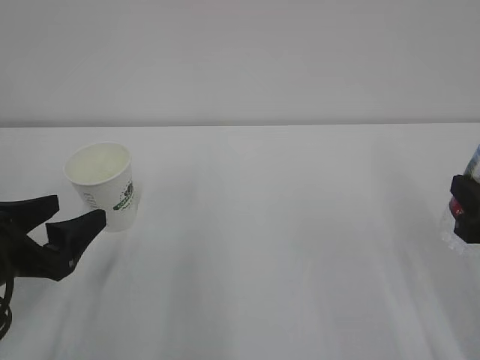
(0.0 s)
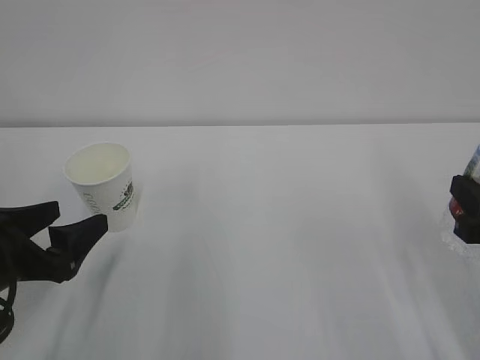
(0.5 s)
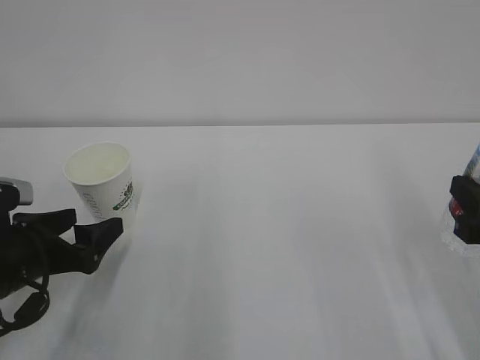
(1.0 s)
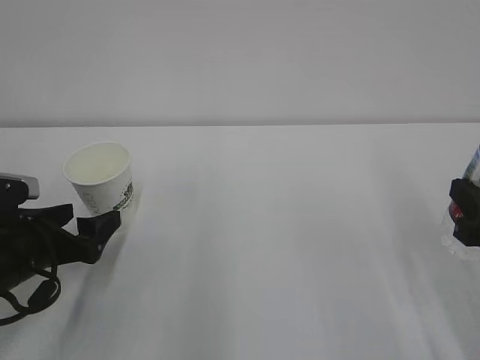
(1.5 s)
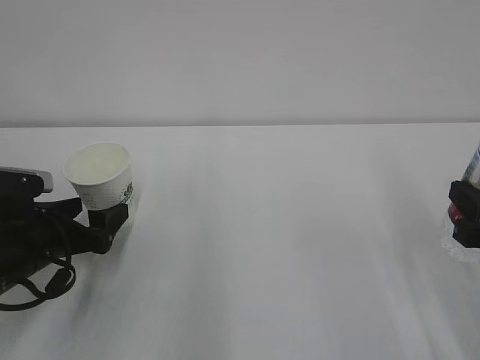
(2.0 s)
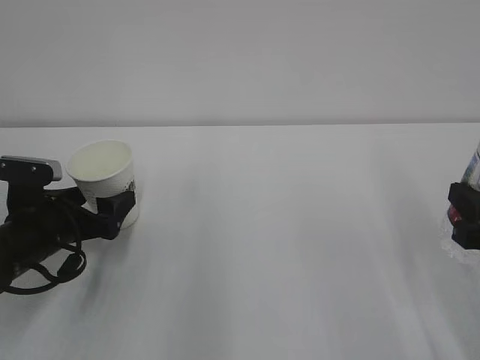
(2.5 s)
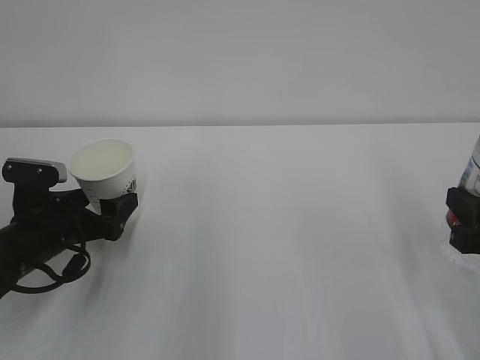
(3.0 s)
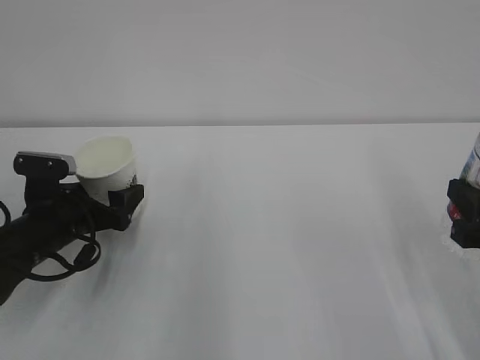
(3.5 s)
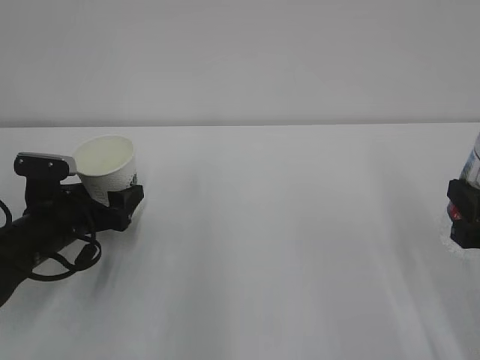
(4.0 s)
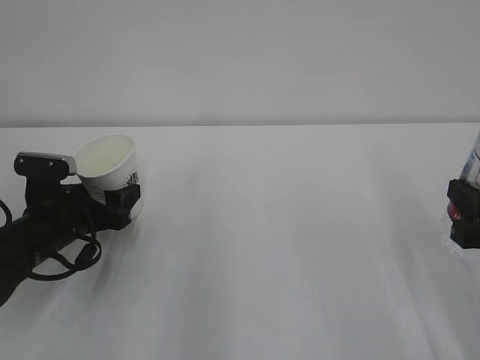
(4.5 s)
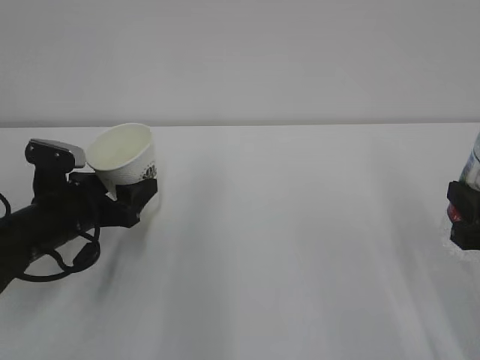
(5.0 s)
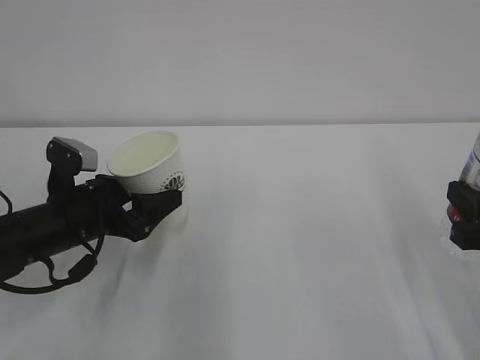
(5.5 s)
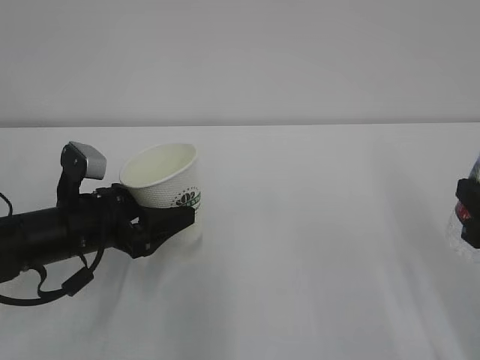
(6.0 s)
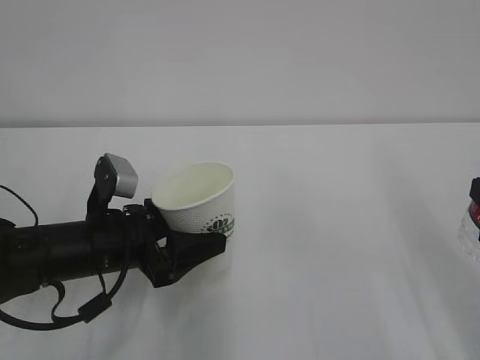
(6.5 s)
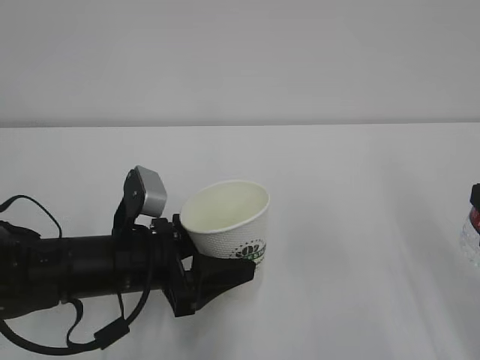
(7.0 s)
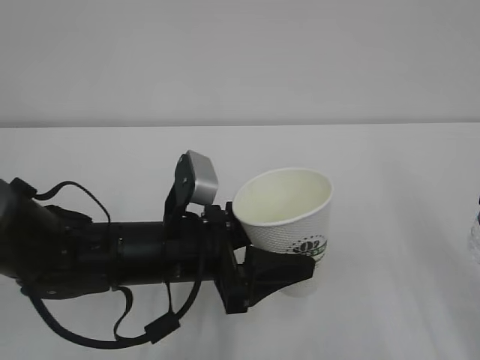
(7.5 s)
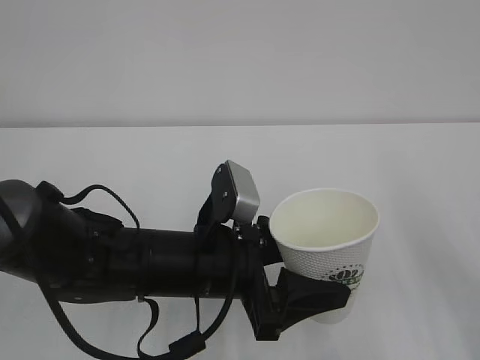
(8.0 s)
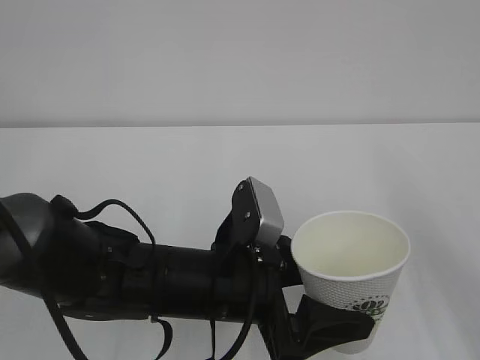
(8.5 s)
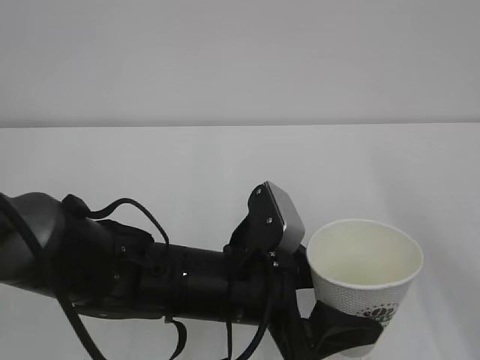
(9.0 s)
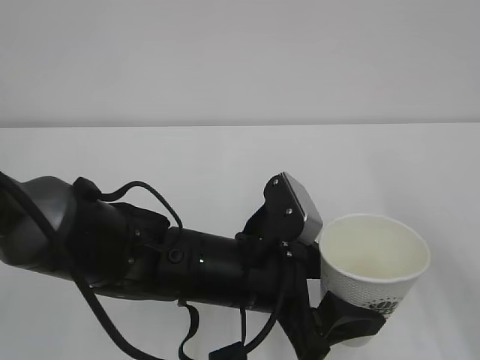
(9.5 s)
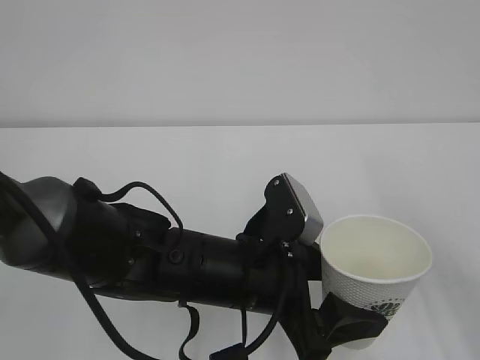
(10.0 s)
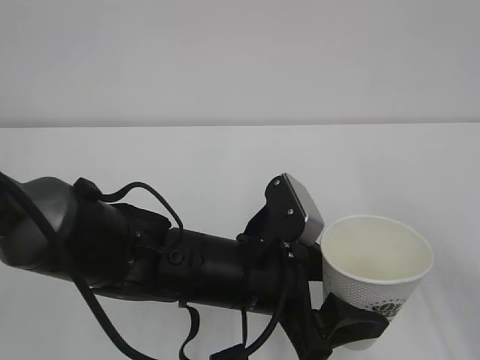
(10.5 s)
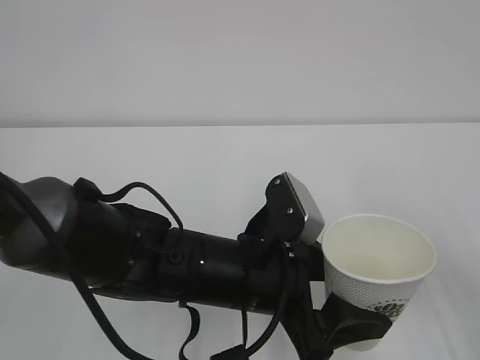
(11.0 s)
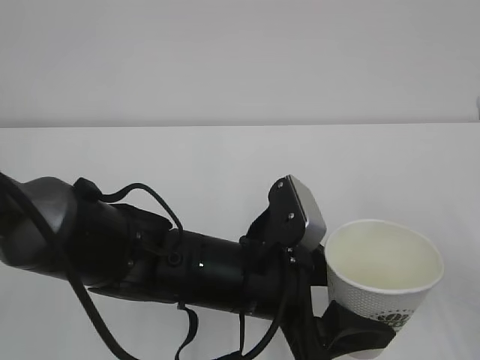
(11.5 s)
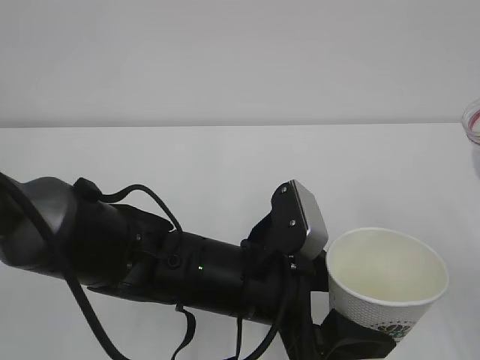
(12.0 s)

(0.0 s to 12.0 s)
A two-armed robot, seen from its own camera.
0.0 s - 2.0 s: The left gripper goes some 10 cm forward and downward.
2.0 s - 4.0 s: The grippers make only small movements.
4.0 s - 6.0 s: The left gripper changes place by approximately 5 cm, and closes its fingers.
6.0 s - 8.0 s: The left gripper heads to the right and backward, covering about 15 cm, while the right gripper moves approximately 5 cm.
8.0 s - 10.0 s: The grippers make only small movements.

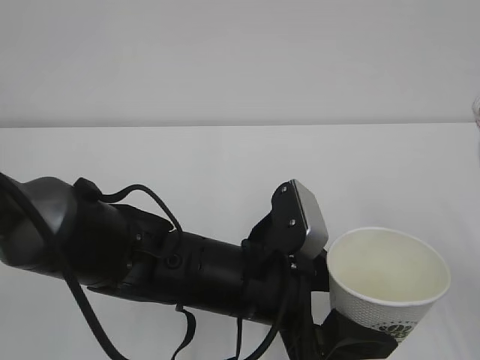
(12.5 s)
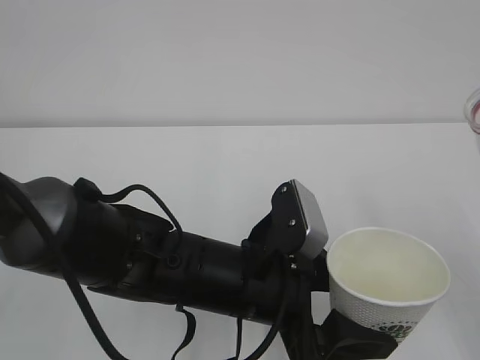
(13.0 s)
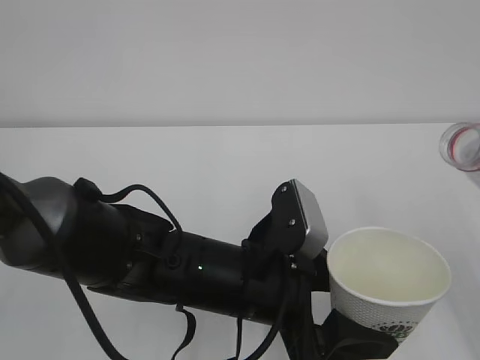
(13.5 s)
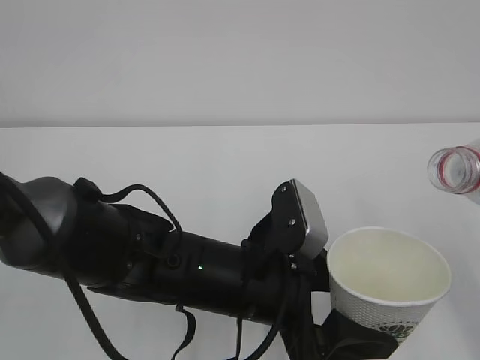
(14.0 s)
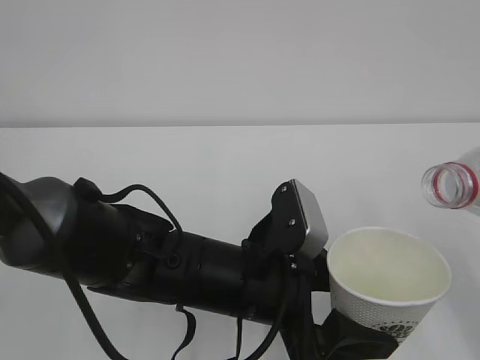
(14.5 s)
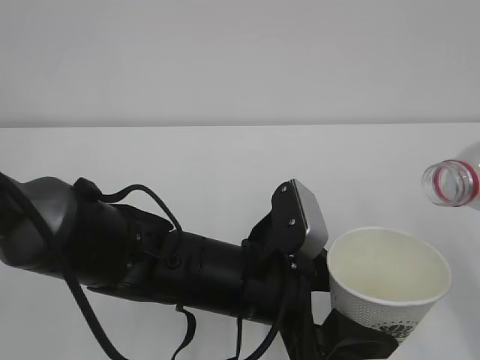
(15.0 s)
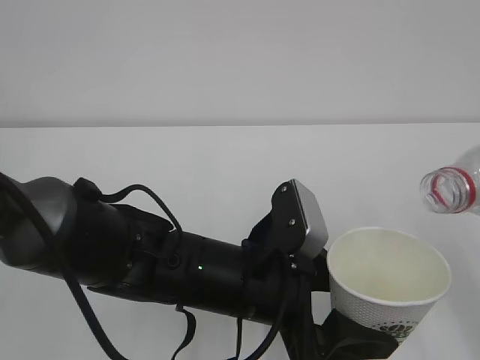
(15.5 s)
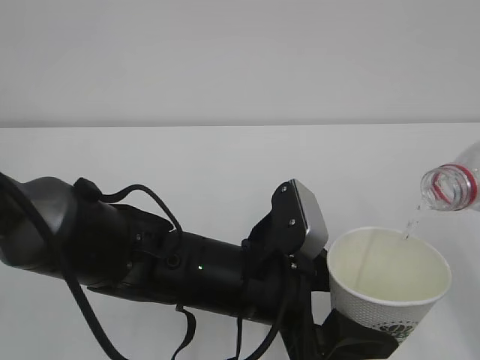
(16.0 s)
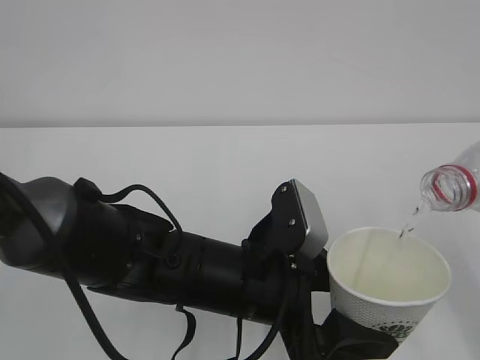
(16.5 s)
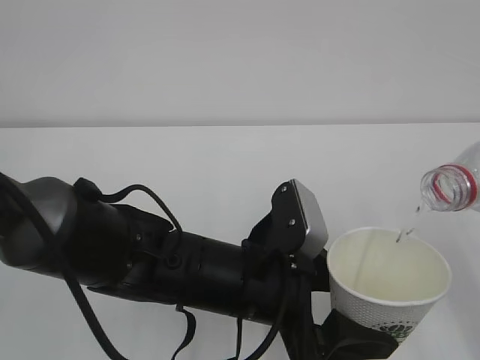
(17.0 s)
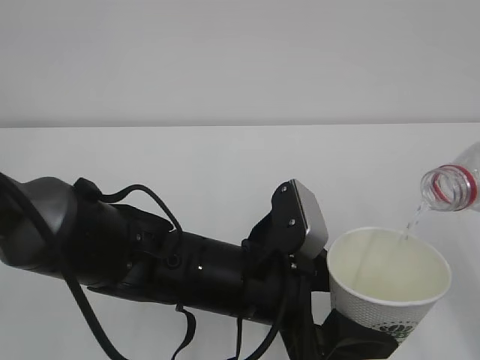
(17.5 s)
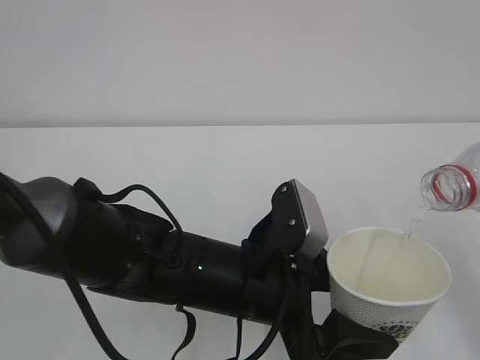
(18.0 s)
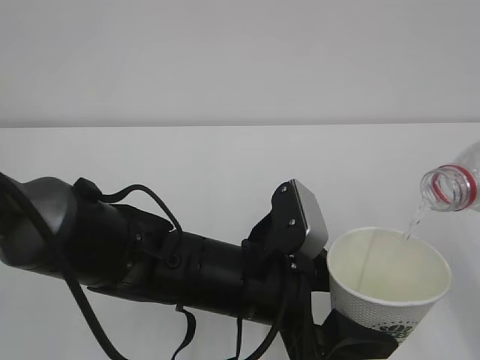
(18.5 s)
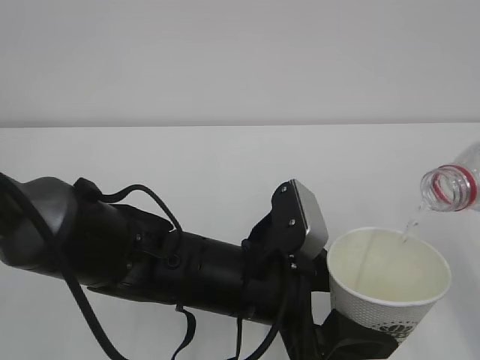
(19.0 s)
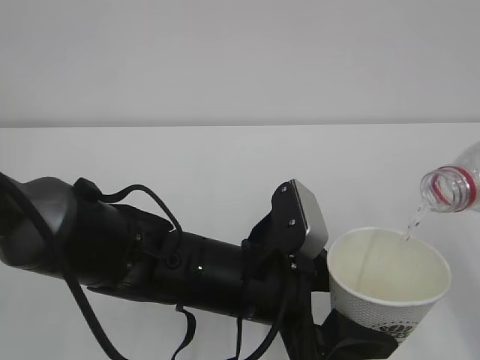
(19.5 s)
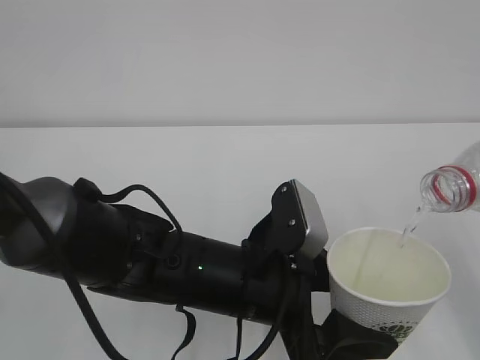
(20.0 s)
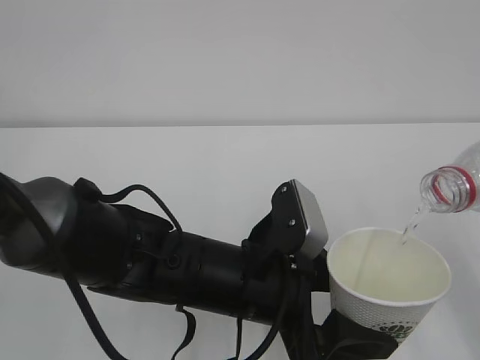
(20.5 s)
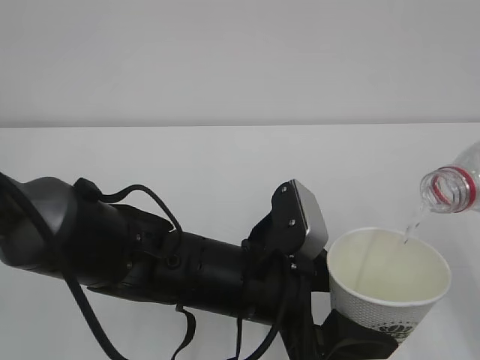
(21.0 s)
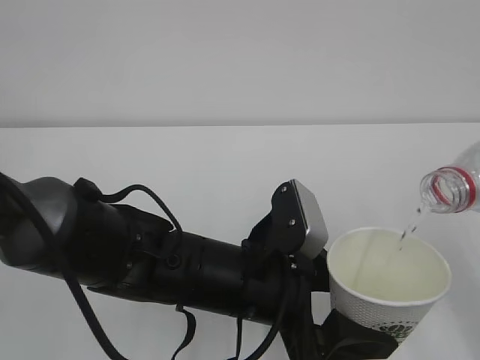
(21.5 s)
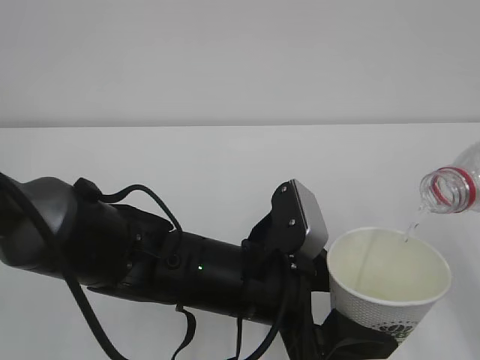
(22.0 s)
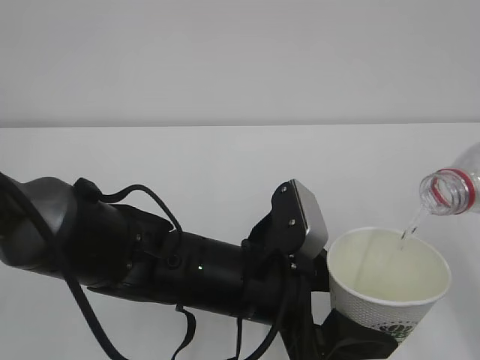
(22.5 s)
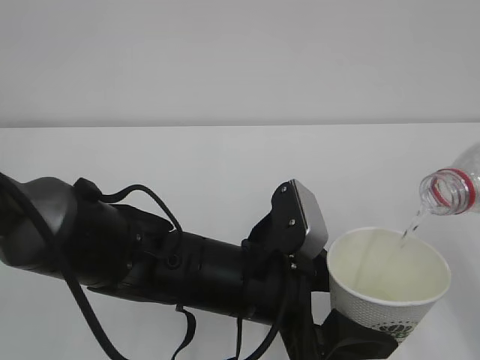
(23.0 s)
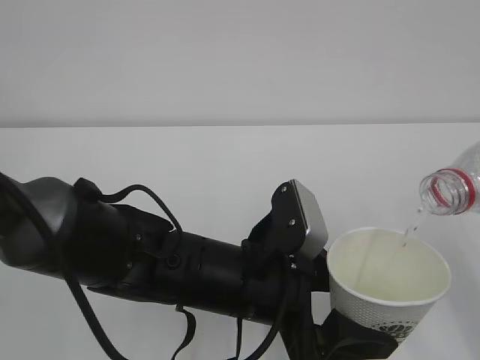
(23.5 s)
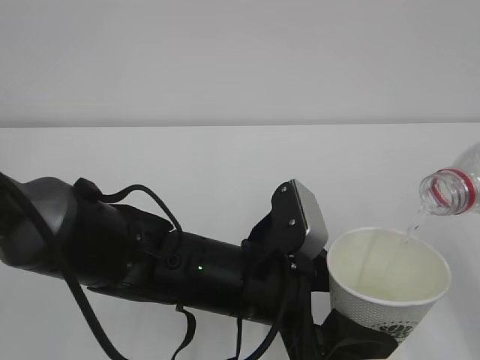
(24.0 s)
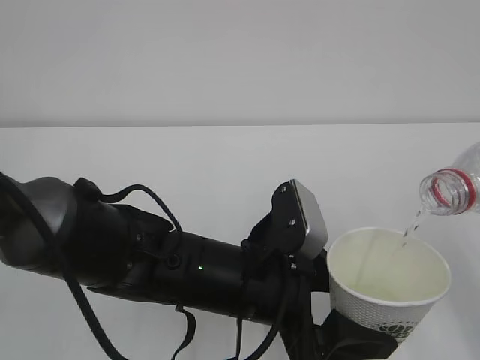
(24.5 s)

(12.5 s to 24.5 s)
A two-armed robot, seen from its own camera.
16.5 s - 24.5 s: Both grippers stay about where they are.

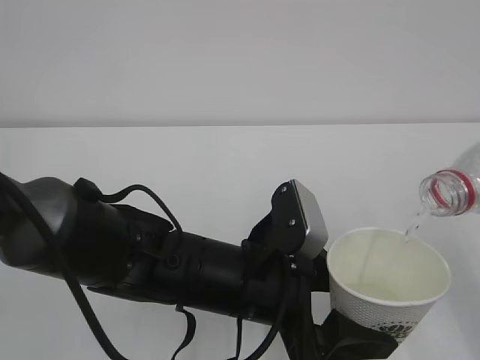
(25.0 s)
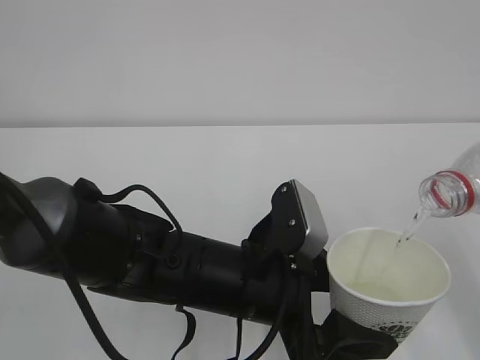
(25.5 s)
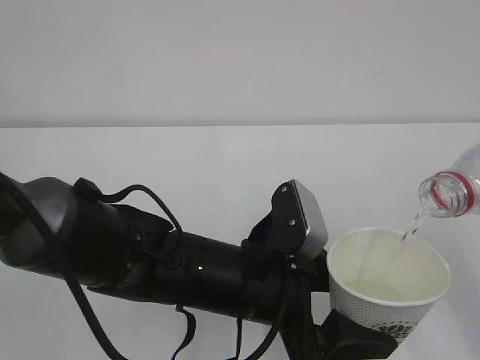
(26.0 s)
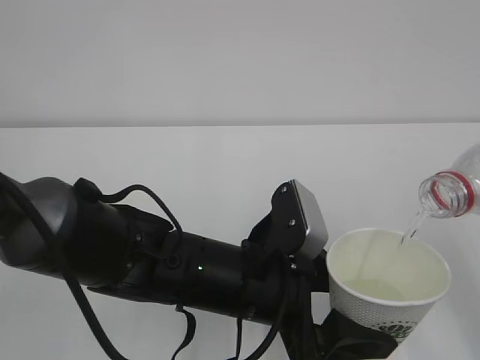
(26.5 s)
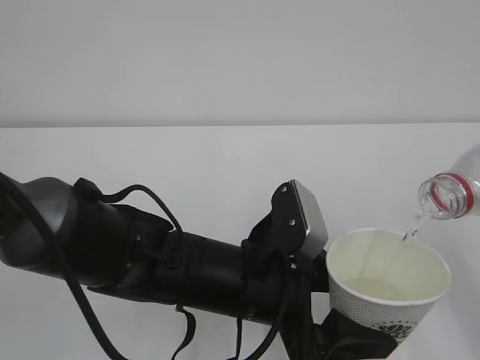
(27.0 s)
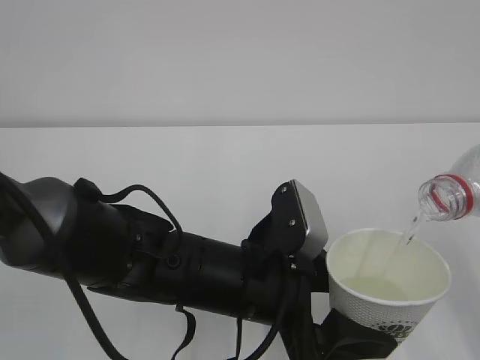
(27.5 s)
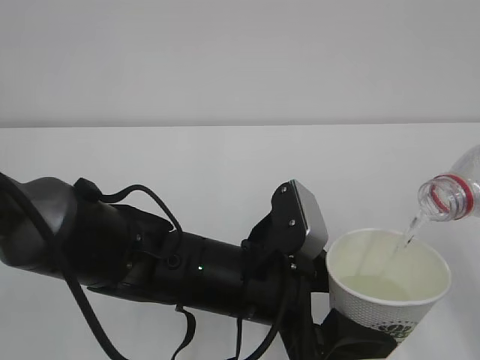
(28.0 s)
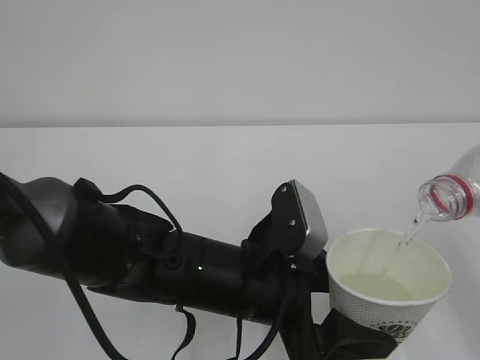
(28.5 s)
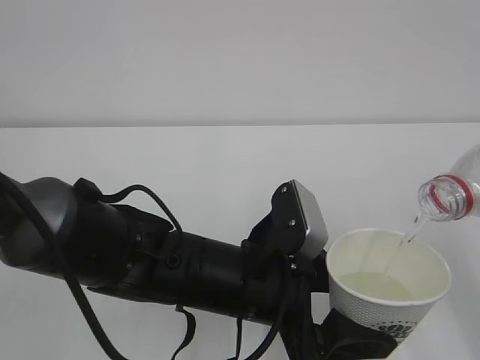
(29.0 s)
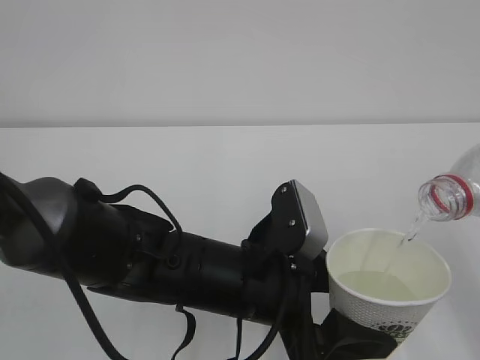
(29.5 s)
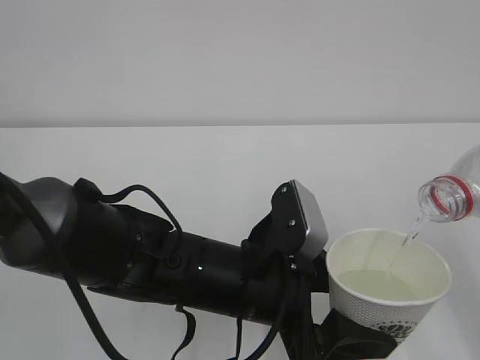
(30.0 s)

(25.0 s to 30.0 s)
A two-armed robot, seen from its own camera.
25.0 s - 30.0 s: The two grippers keep their place.
